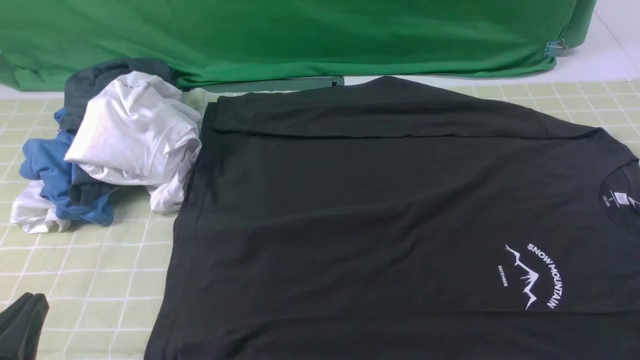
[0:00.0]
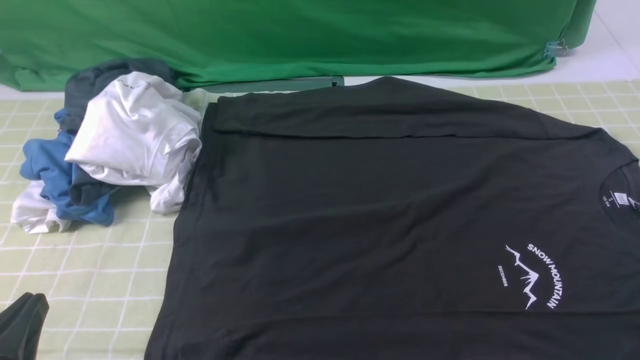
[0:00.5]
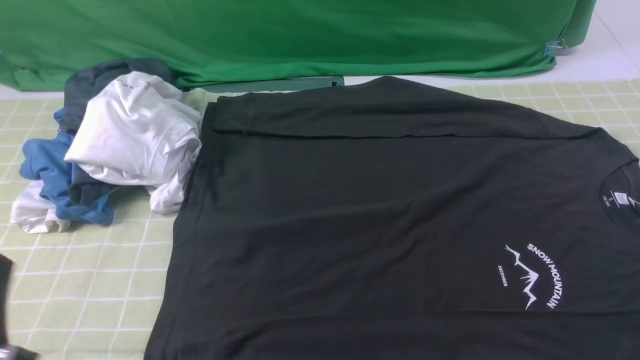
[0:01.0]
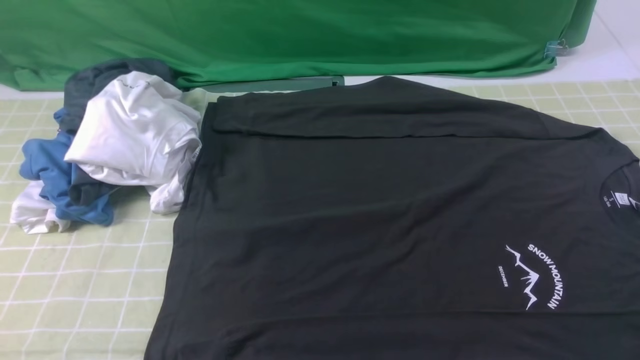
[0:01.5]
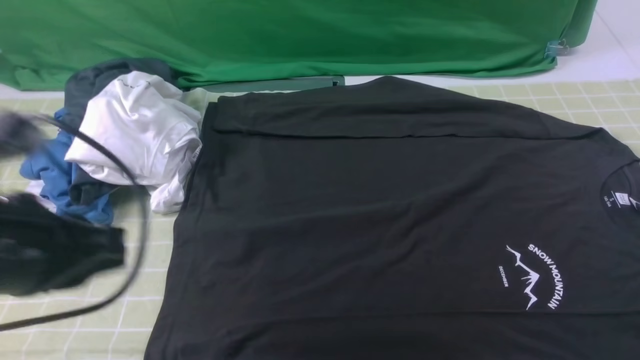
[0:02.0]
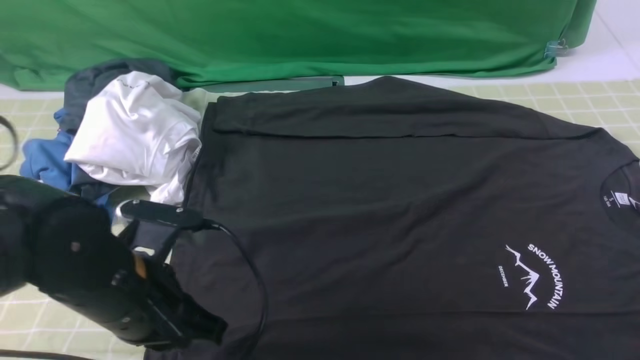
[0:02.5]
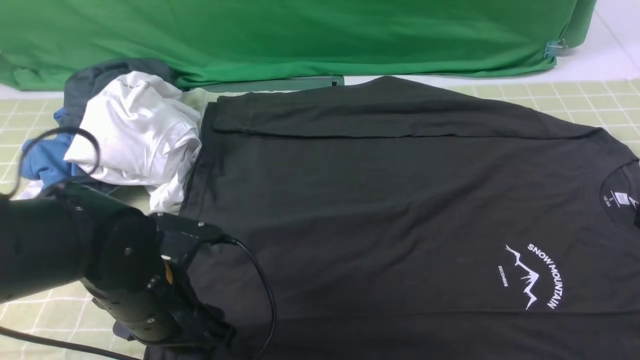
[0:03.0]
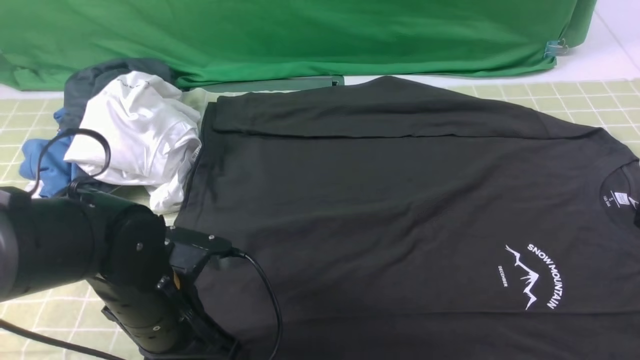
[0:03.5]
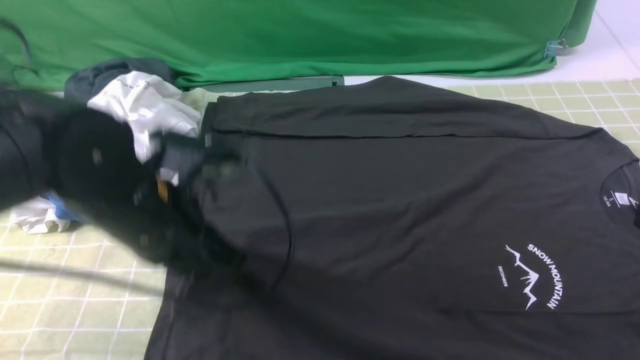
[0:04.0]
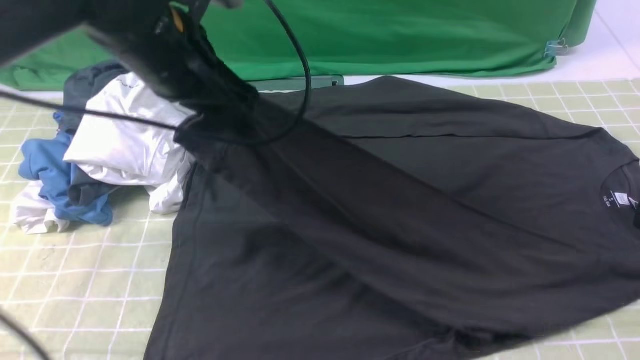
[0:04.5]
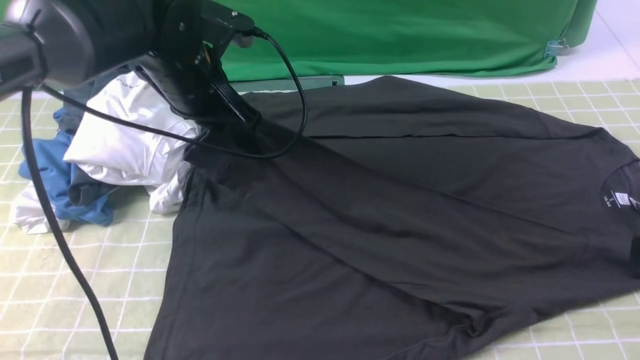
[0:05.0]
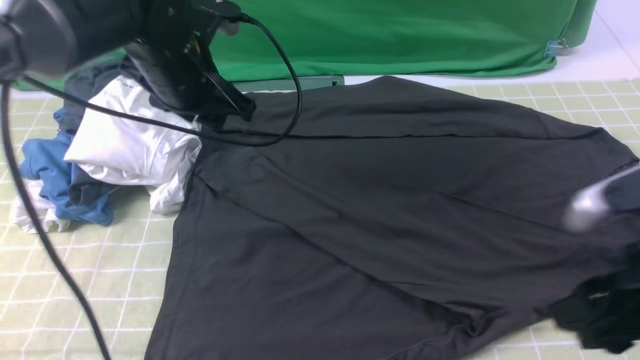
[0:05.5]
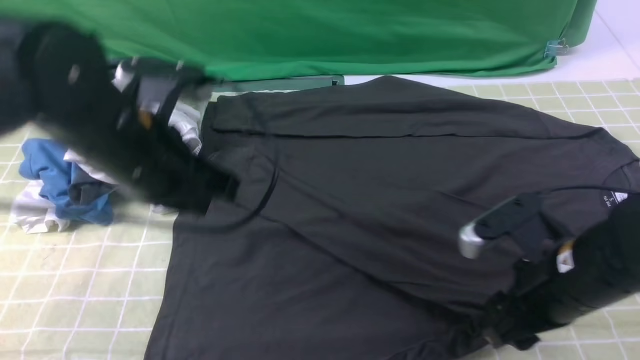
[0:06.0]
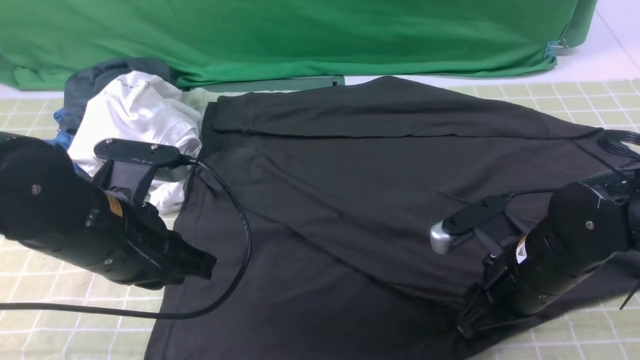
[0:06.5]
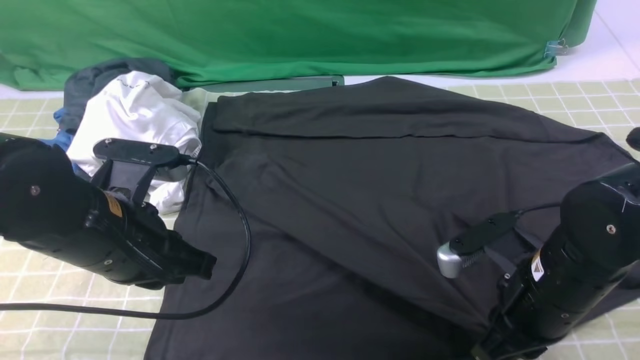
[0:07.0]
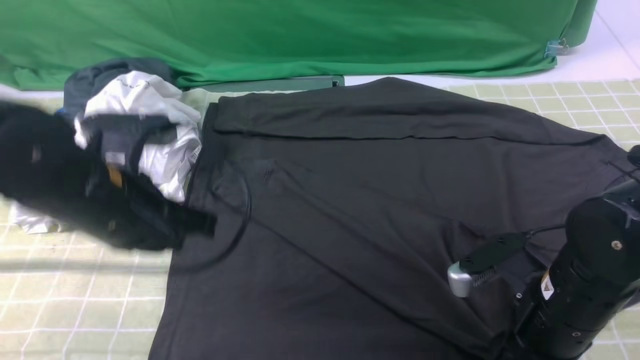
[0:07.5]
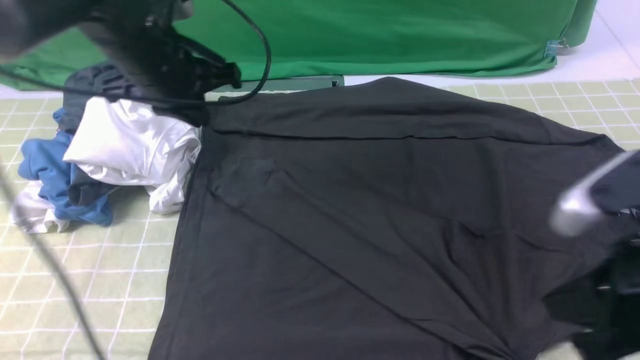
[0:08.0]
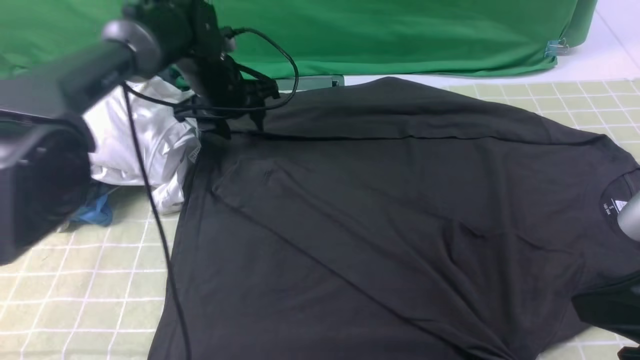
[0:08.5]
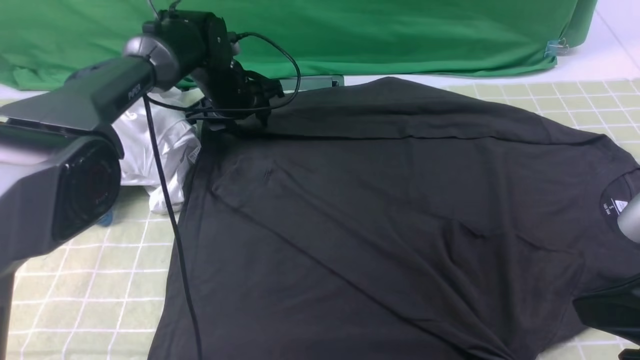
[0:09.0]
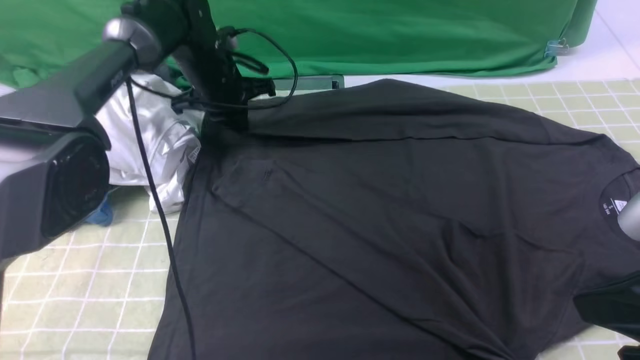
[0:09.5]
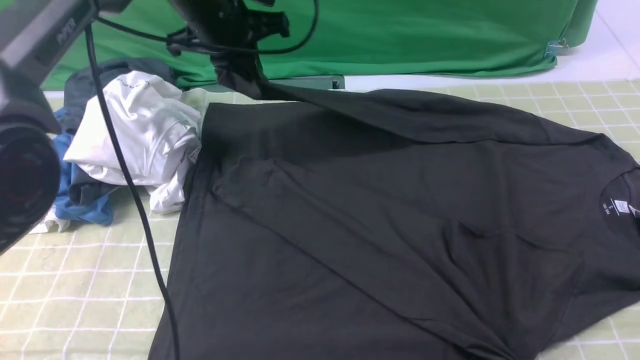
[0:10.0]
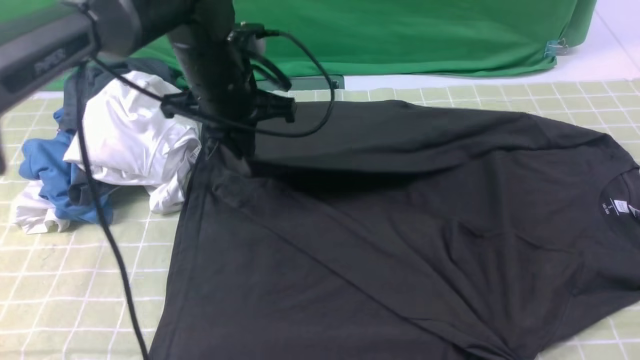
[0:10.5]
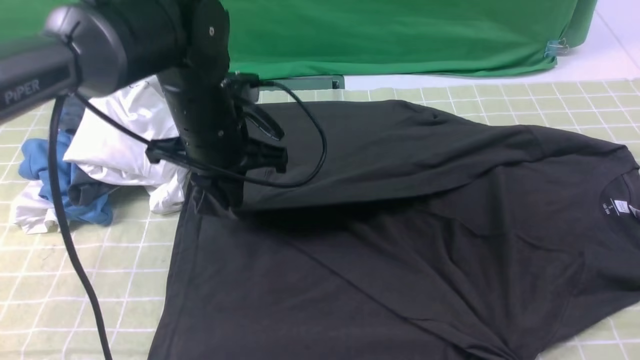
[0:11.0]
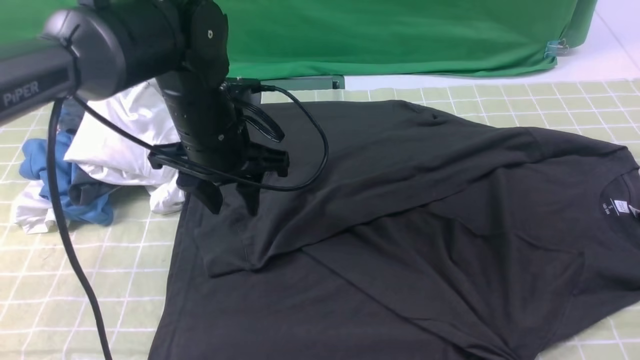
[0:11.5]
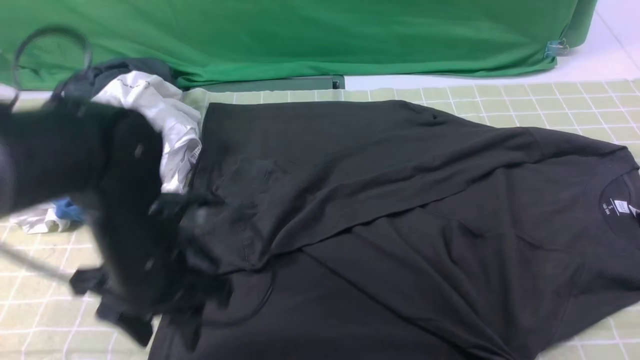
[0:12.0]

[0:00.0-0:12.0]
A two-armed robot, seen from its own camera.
Step, 0:00.0 to 0:03.5: use the left arm to clamp the cuff closest to it.
Step, 0:04.0 to 0:05.0: use the left arm to drag and place the cuff at the centered position on the left edge of the fabric.
Step, 0:05.5 to 0:09.0: use the left arm to clamp the cuff farthest from it.
Step, 0:09.5 to 0:11.5: use the left arm to drag and drop the cuff onto the cuff closest to the left arm.
0:00.0 to 0:02.0: The left gripper is displaced forward and upward by approximately 15 cm.
0:02.0 to 0:04.0: The right gripper travels upward by some 5 cm. The left gripper travels to the right and forward by approximately 10 cm, goes downward and returns, approximately 15 cm each way, and opens, then closes again.
0:04.0 to 0:06.0: The left gripper travels forward and back again, about 15 cm each way, and opens, then closes once more, while the right gripper is displaced downward, forward and to the left by about 20 cm, and opens.
0:06.0 to 0:08.0: The left gripper heads forward, covering roughly 15 cm, while the right gripper travels upward and backward by roughly 15 cm, and closes its fingers.
0:08.0 to 0:10.0: The left gripper travels forward by about 5 cm, moves approximately 10 cm downward and comes back, and opens, then closes again, while the right gripper ends up approximately 5 cm from where it was.
0:10.0 to 0:12.0: The left gripper goes approximately 25 cm backward, and opens up.

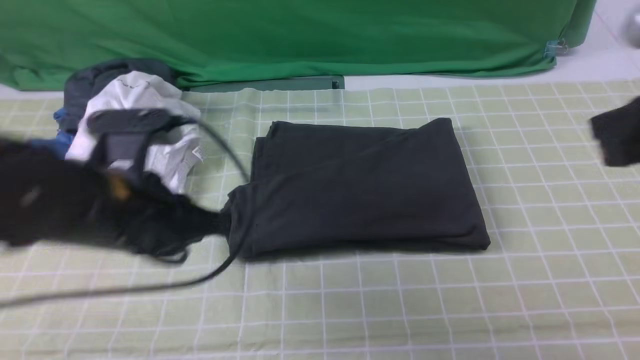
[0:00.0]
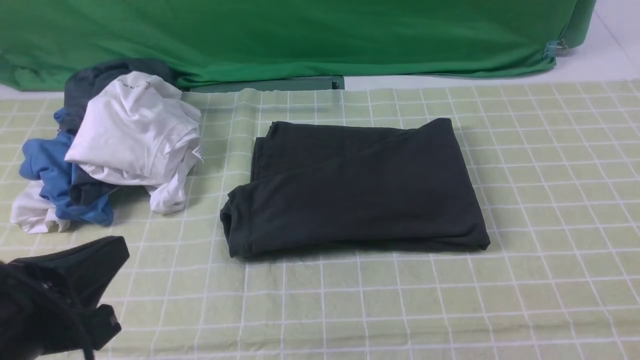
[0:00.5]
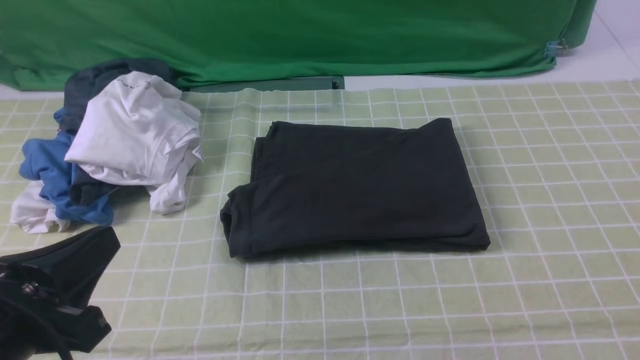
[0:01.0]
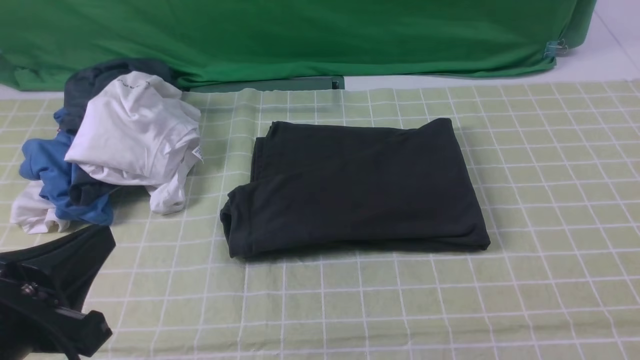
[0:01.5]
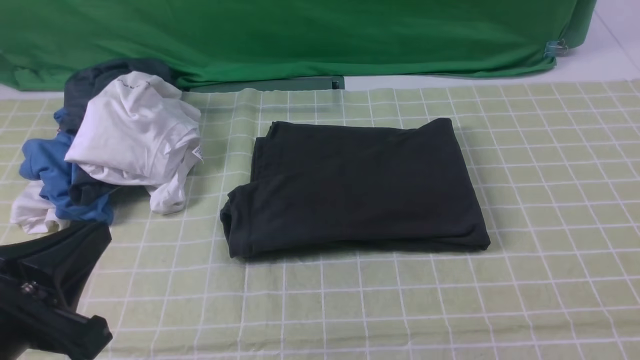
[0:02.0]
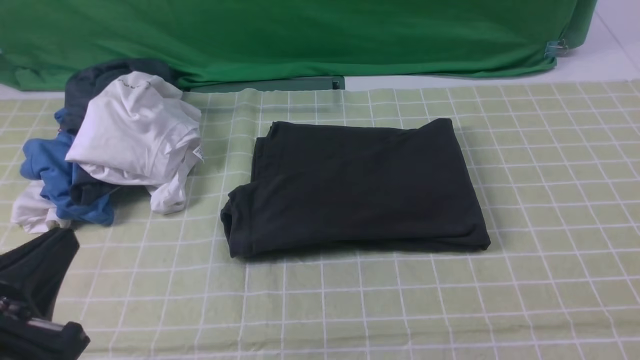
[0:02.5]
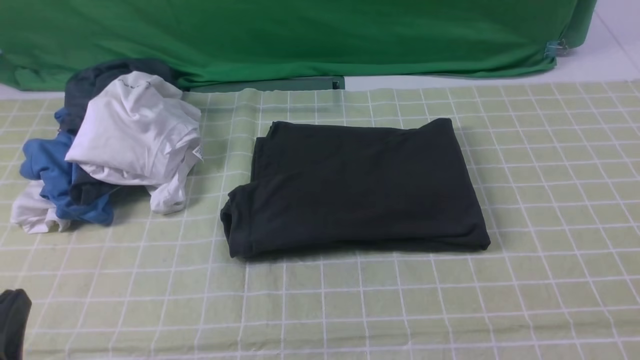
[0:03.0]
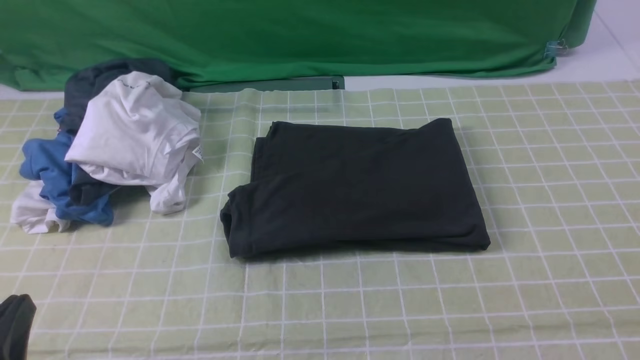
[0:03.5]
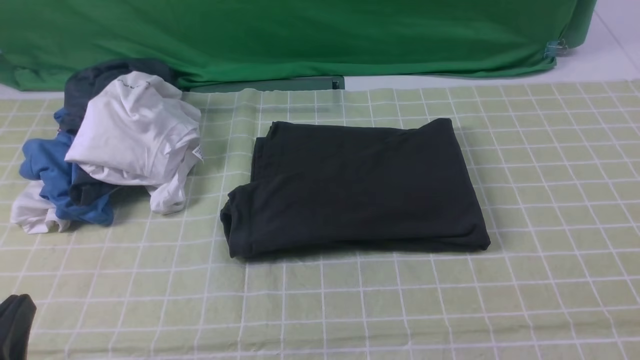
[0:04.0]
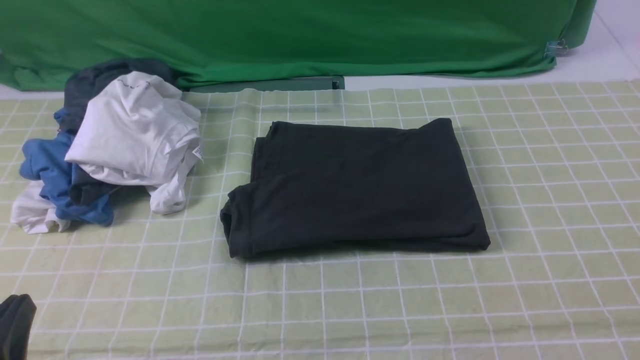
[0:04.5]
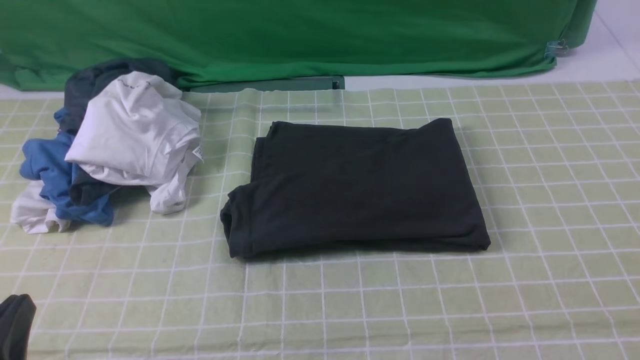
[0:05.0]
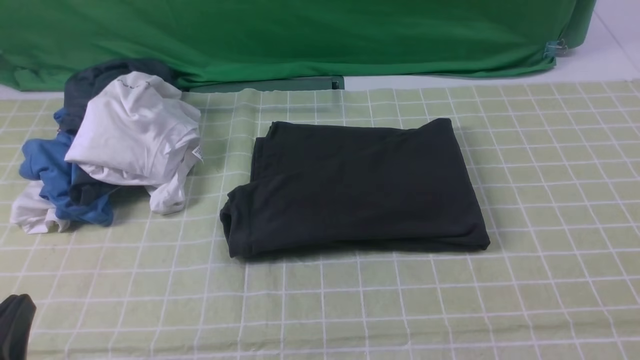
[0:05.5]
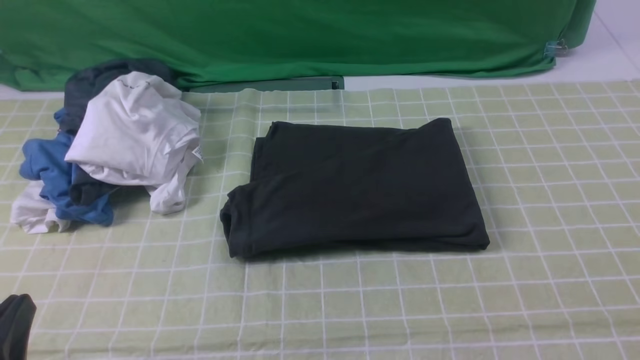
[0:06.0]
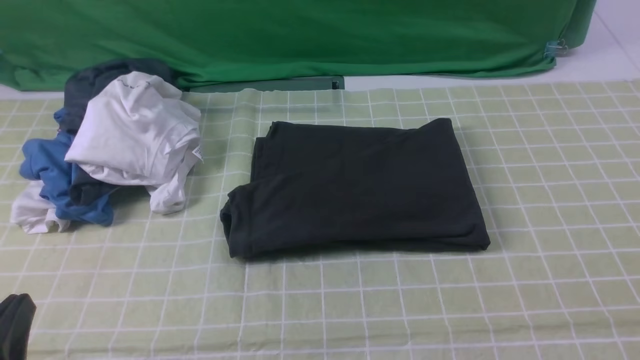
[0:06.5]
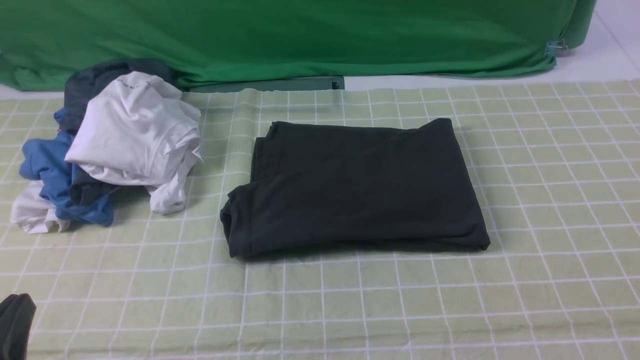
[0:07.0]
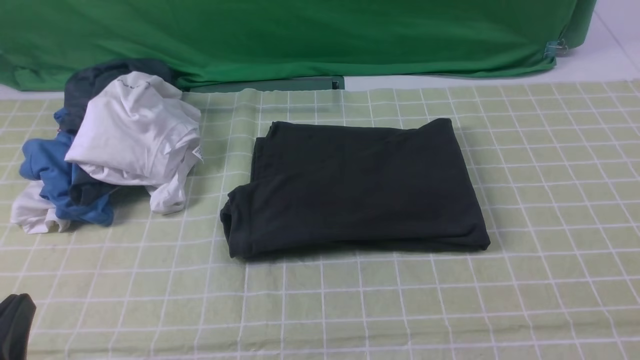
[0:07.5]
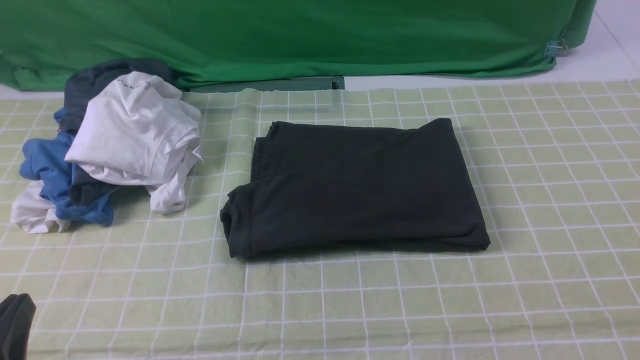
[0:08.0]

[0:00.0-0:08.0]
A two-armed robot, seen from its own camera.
0:00.0 to 0:02.0: Both grippers travel together backward, roughly 15 cm.
0:02.0 to 0:04.0: The left gripper goes about 10 cm downward.
0:06.0 to 0:08.0: Both grippers stay about where they are.
